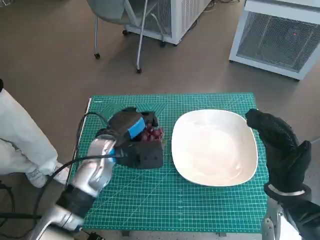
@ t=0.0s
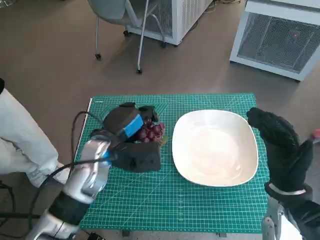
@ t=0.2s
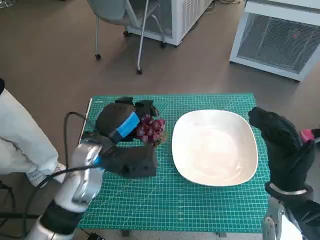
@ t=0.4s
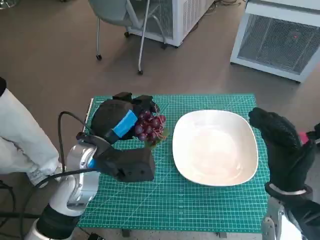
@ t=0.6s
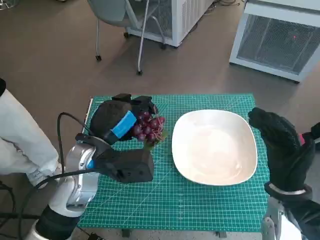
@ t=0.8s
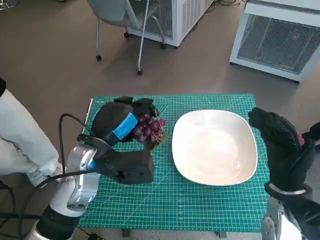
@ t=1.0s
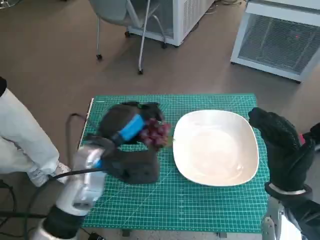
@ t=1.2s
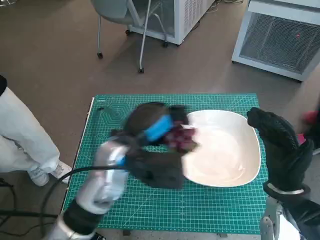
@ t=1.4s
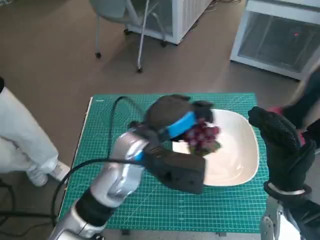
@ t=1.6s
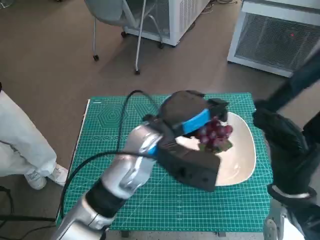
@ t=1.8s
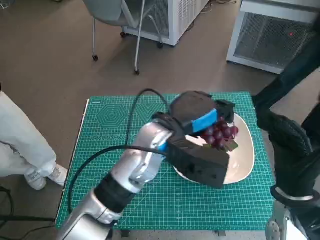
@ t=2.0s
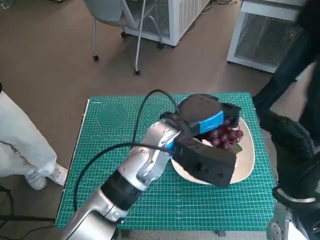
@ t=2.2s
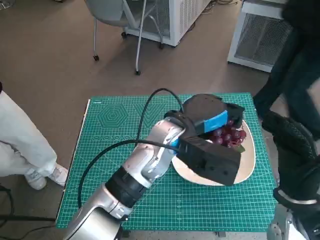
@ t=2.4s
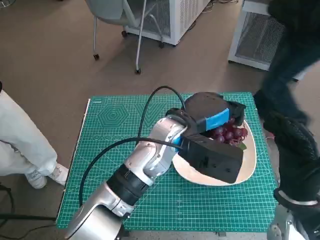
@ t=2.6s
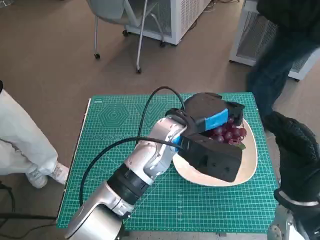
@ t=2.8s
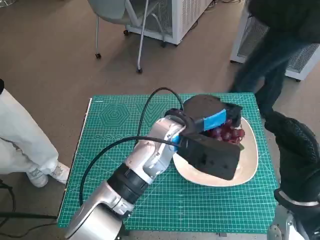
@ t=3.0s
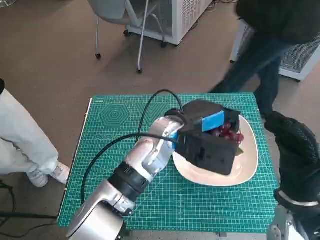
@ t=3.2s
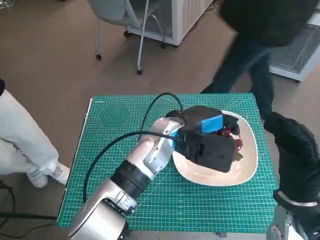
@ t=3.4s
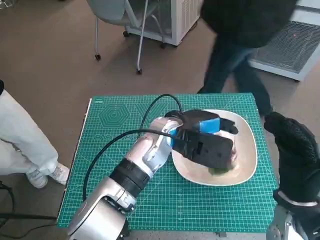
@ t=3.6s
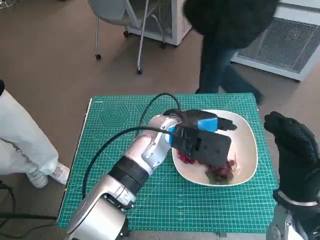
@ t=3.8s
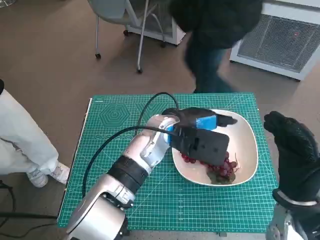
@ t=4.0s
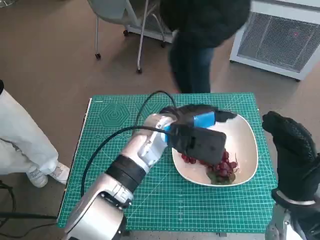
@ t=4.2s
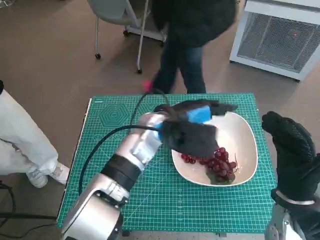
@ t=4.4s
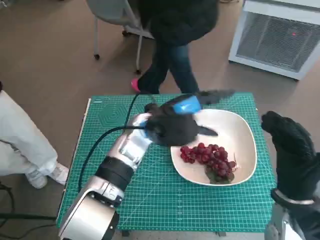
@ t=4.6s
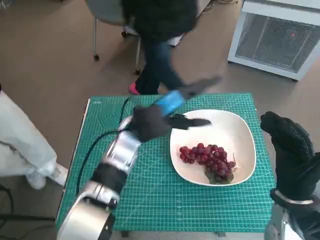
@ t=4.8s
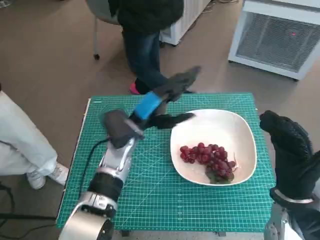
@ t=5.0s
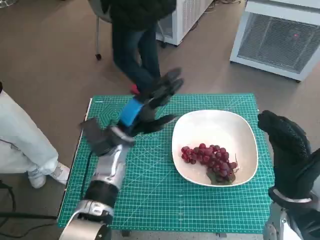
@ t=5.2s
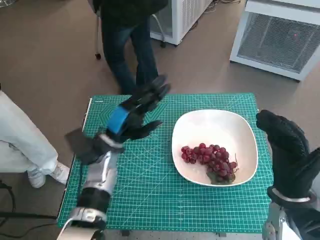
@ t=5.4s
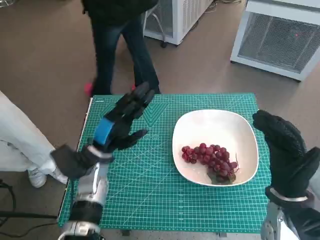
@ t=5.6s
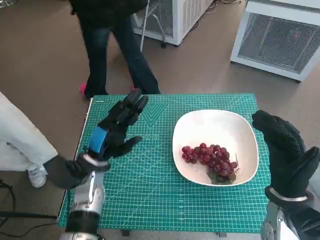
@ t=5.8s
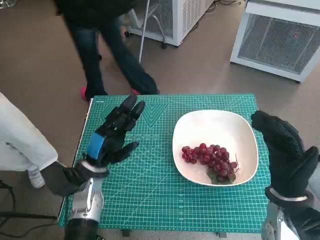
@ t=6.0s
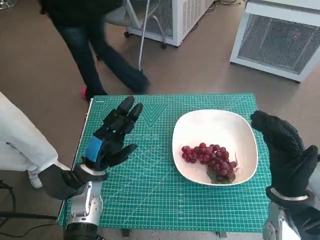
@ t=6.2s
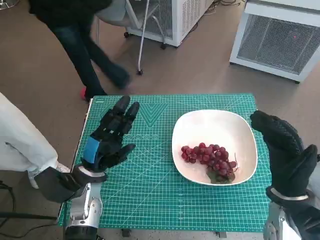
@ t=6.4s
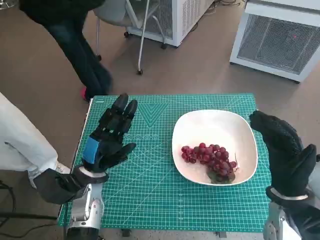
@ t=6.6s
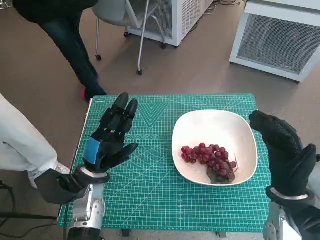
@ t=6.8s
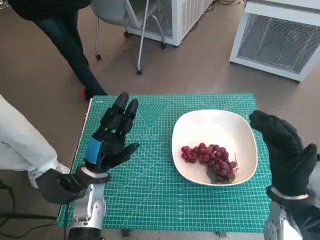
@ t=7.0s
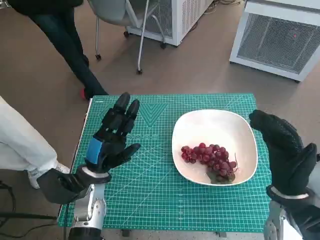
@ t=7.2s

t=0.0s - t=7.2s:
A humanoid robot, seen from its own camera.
Task of the whole recording: Pick up the grapes and put them on the plate.
Step, t=0.0s - t=3.8s: Place the grapes in the plate with left hand.
t=0.0s - t=1.4s: The left hand travels upward by some 5 cm.
t=1.4s - t=2.8s: The left hand heads to the right, covering about 10 cm.
t=4.4s - t=5.8s: The left hand is displaced to the left and downward by about 20 cm.
t=5.8s - t=7.2s: The hands stay close to where they were, moving slightly.

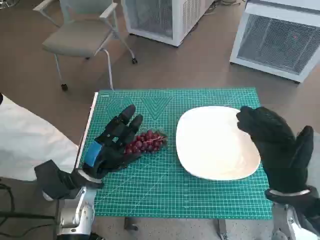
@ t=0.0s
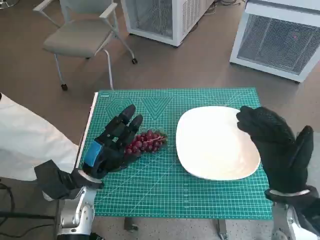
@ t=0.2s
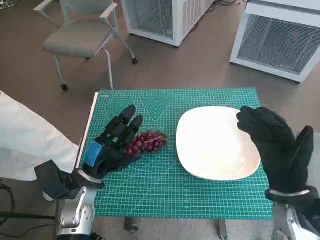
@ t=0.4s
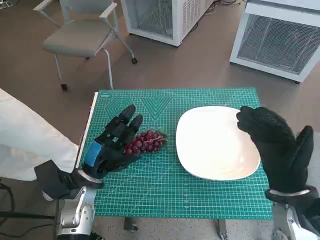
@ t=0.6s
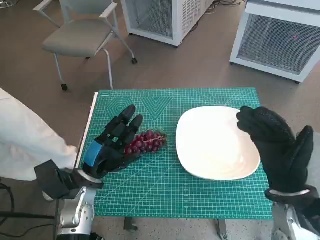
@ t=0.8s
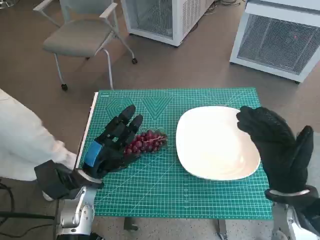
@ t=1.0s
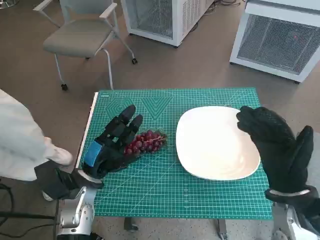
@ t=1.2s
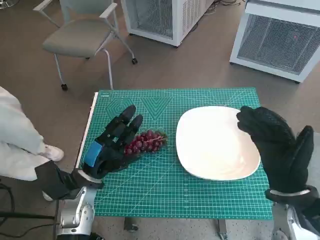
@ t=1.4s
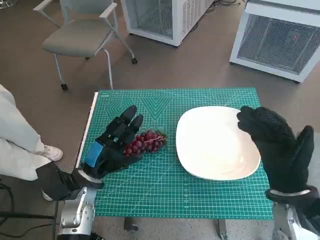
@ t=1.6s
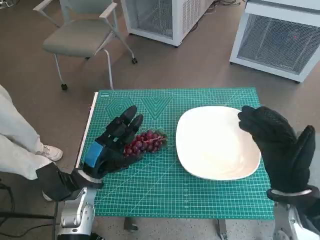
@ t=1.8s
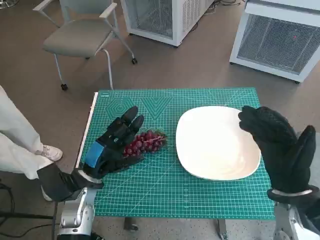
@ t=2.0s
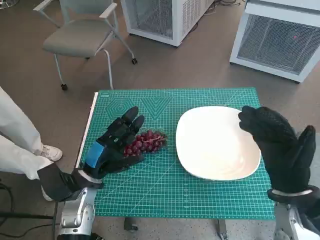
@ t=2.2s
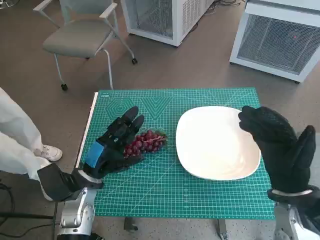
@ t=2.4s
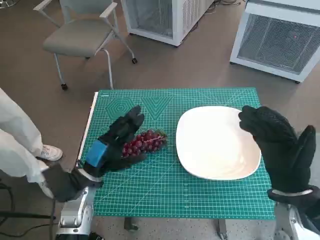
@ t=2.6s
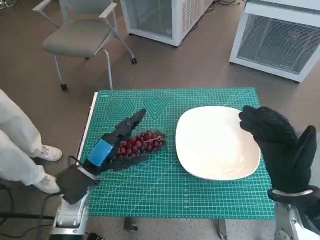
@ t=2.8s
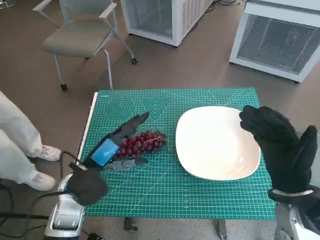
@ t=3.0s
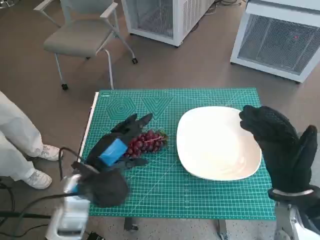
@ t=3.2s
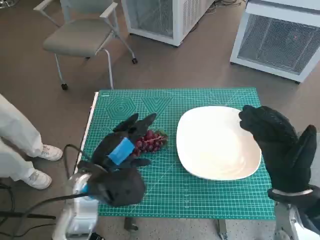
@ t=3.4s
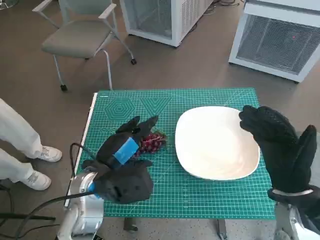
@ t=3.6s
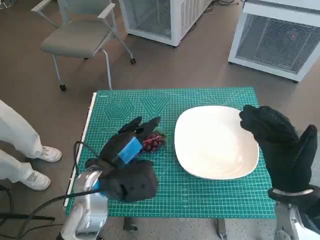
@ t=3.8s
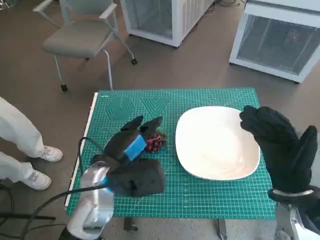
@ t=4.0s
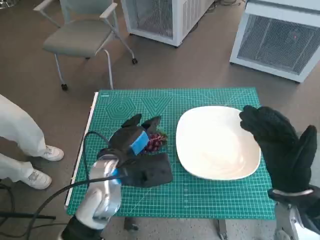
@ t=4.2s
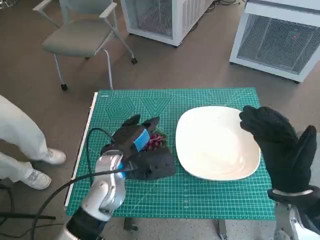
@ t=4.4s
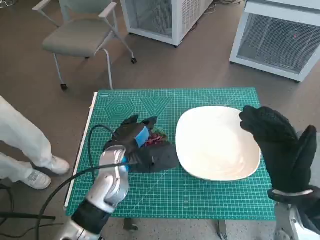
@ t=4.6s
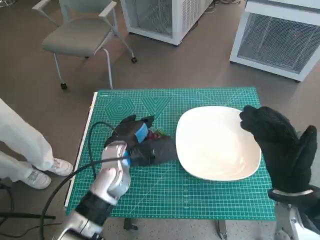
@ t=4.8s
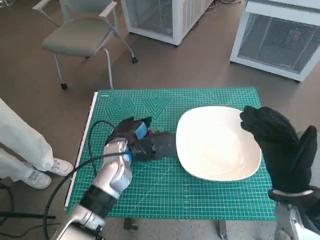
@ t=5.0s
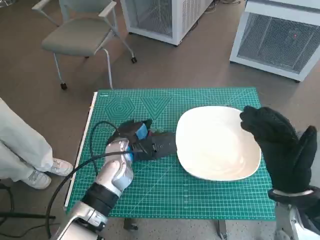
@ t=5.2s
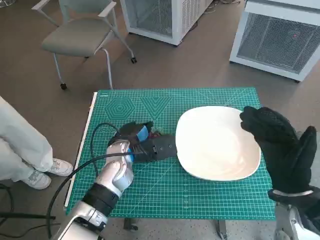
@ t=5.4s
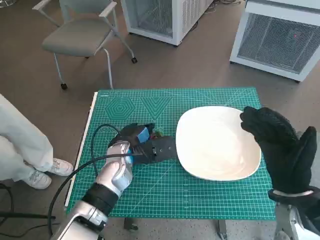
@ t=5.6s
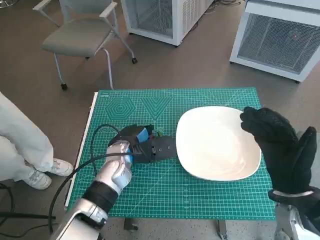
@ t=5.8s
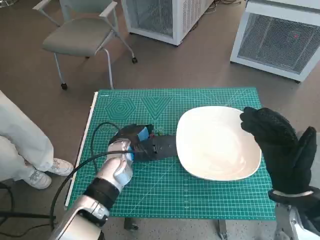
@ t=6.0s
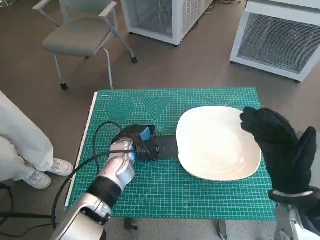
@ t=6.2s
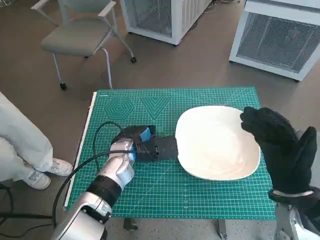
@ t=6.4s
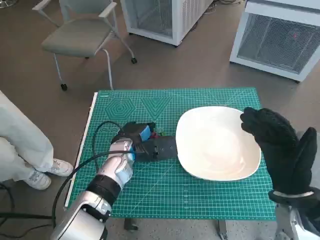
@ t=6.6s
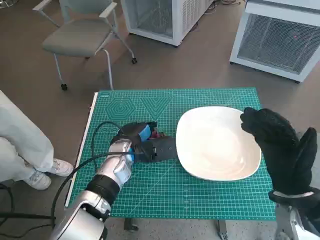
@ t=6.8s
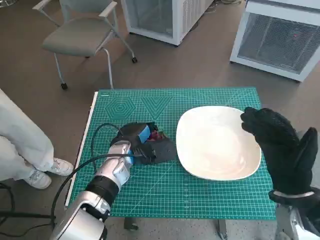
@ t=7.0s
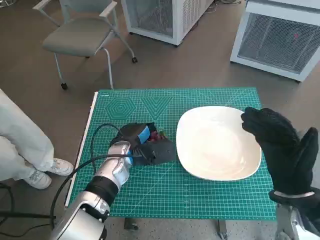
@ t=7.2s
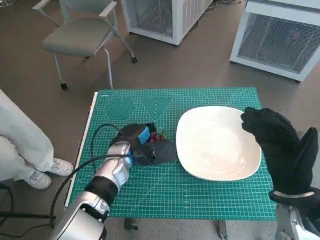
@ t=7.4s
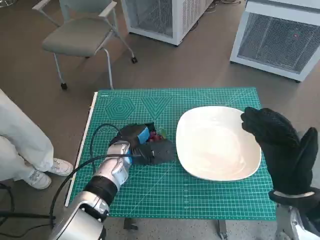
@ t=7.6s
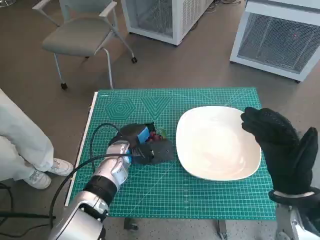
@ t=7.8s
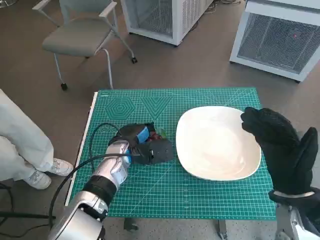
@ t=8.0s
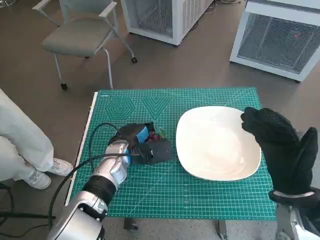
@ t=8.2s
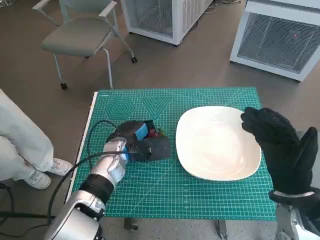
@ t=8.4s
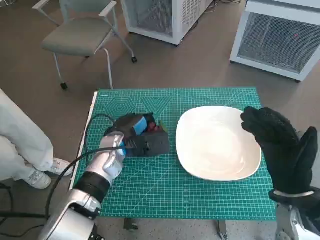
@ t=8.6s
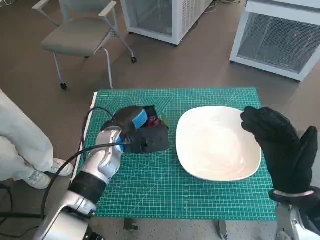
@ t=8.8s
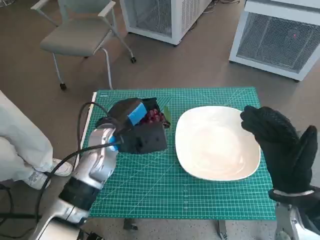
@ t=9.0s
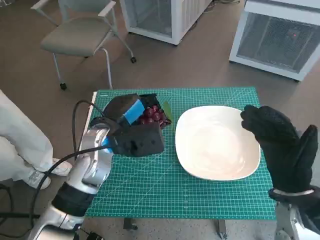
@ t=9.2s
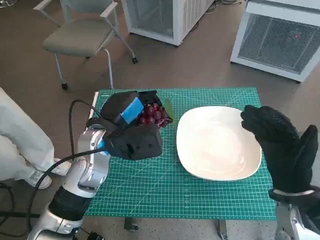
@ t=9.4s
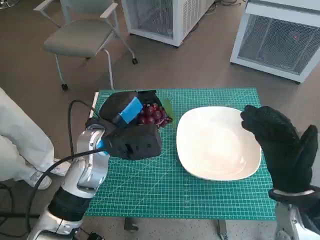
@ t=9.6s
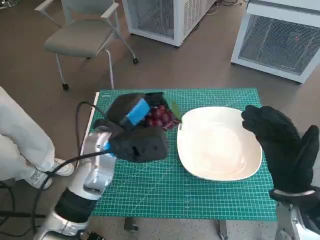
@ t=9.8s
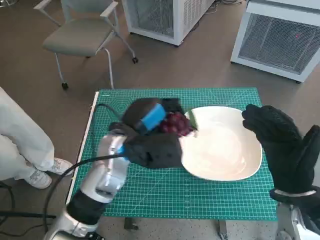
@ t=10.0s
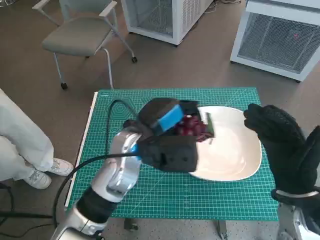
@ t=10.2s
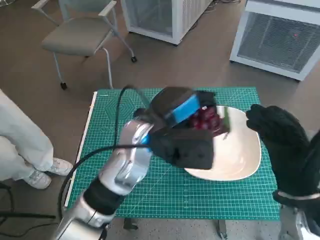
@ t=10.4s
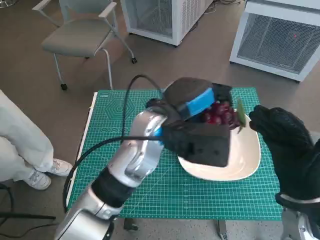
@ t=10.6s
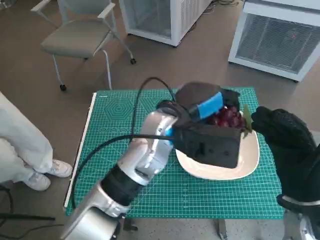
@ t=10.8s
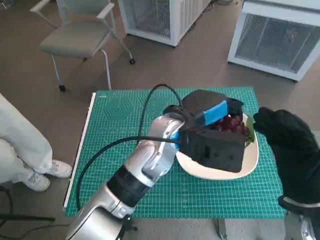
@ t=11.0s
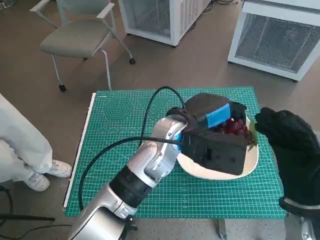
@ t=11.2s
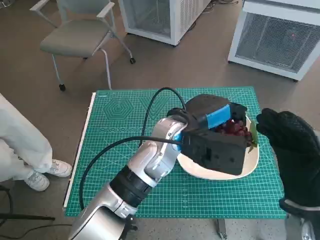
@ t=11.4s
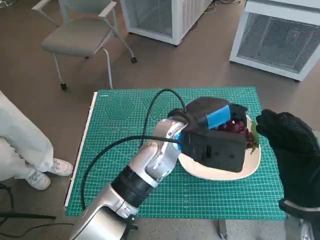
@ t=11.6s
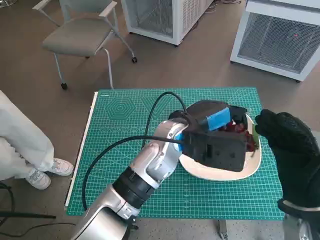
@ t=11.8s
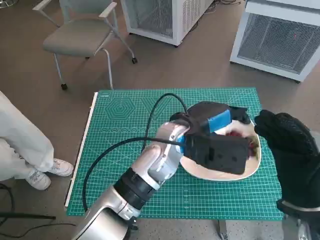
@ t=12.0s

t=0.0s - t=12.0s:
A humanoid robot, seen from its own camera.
Task of the whole recording: Pick up the grapes and put them on the plate.
Step, t=0.0s - t=7.2s: Grasp the grapes with left hand.
t=3.0s - t=4.4s: The left hand goes roughly 5 cm to the right.
t=4.4s - t=6.0s: The left hand is displaced forward by approximately 5 cm.
t=6.0s - t=7.6s: The hands stay close to where they were, moving slightly.
t=7.6s - t=9.0s: The left hand goes about 5 cm upward.
t=9.0s - t=10.4s: The left hand shifts roughly 10 cm to the right and upward.
t=10.4s - t=12.0s: The left hand heads to the right, covering approximately 5 cm.

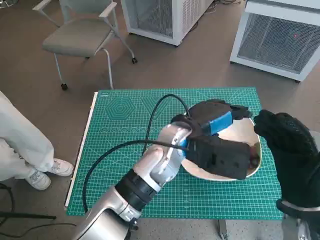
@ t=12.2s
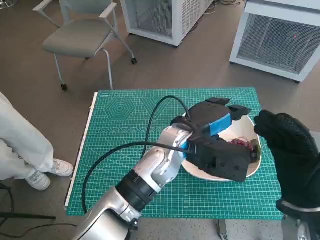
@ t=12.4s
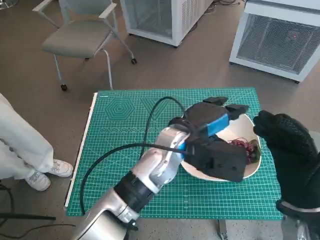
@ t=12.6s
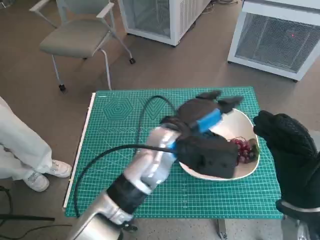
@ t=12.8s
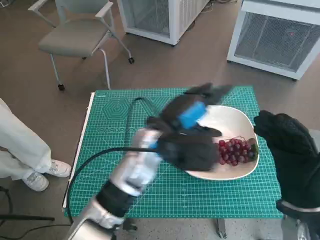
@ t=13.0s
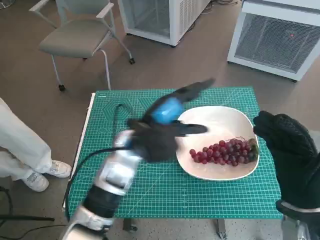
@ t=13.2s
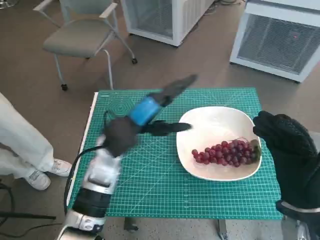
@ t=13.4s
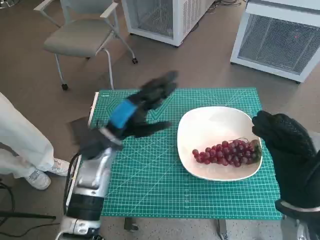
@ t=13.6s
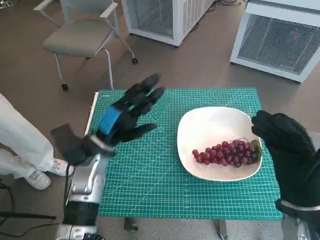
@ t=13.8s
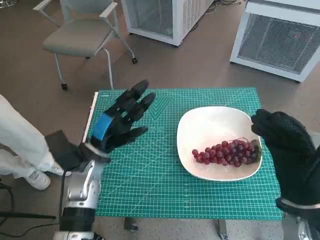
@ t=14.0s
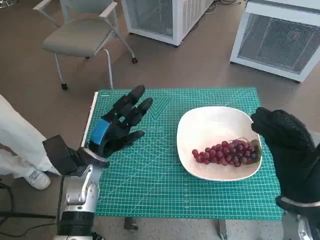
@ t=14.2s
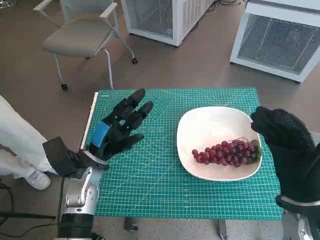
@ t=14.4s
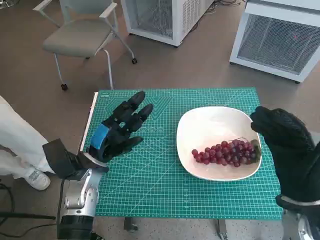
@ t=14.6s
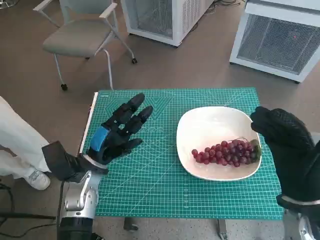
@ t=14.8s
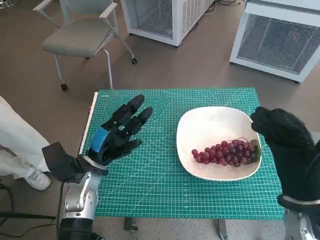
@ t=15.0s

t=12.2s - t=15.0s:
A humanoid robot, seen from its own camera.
Task of the whole recording: Pick up the grapes and put them on the plate.
t=12.2s - t=13.6s: The left hand heads to the left, covering some 15 cm.
t=13.6s - t=15.0s: The left hand heads downward and to the left, covering some 10 cm.
